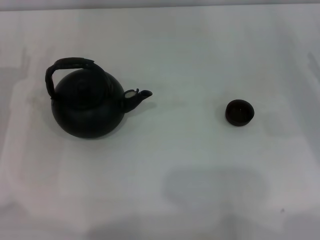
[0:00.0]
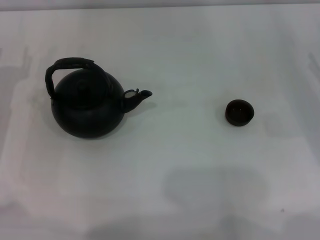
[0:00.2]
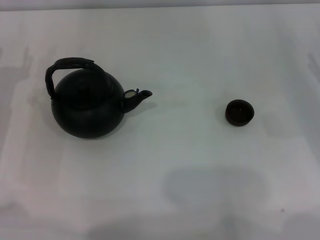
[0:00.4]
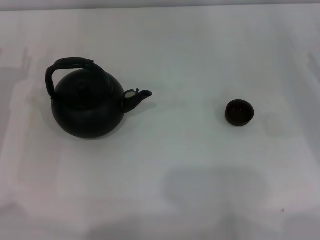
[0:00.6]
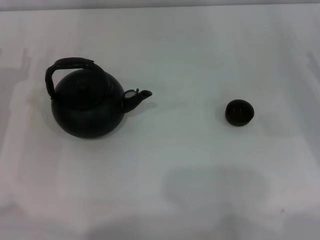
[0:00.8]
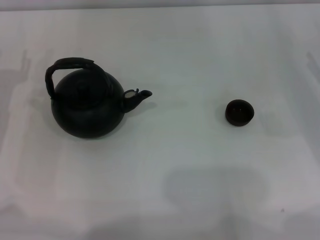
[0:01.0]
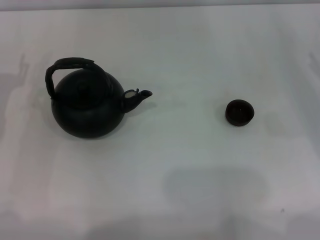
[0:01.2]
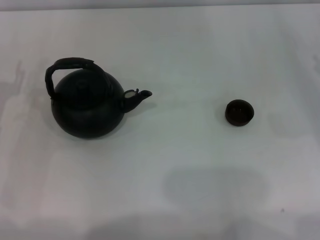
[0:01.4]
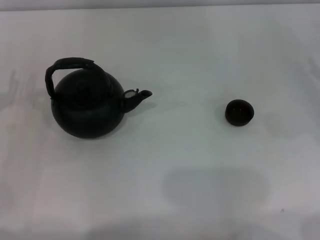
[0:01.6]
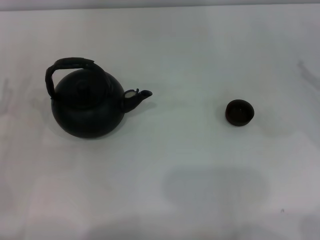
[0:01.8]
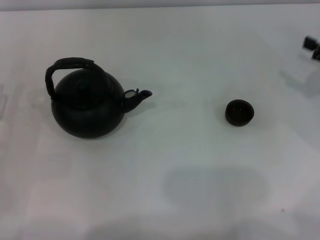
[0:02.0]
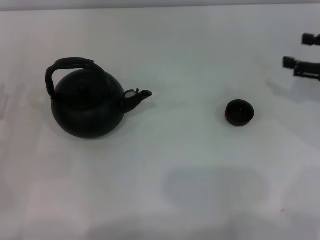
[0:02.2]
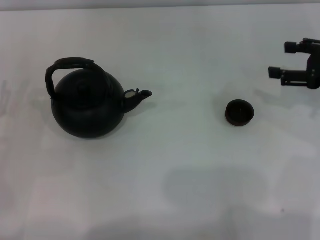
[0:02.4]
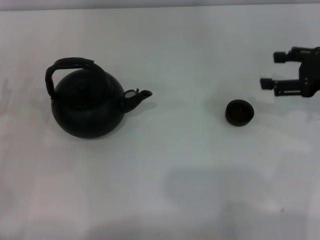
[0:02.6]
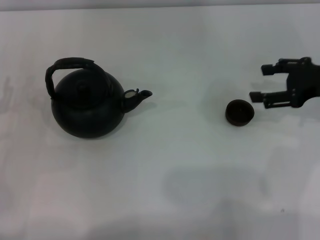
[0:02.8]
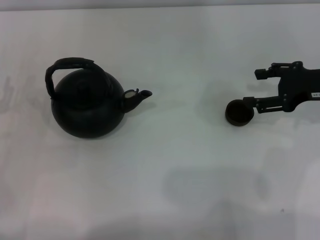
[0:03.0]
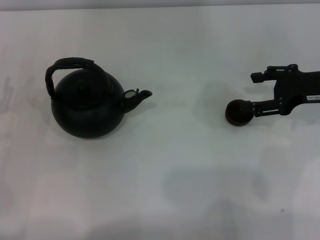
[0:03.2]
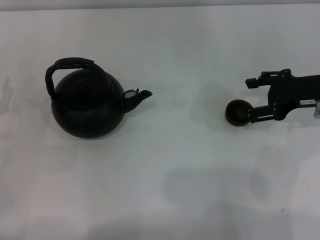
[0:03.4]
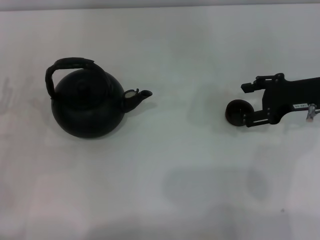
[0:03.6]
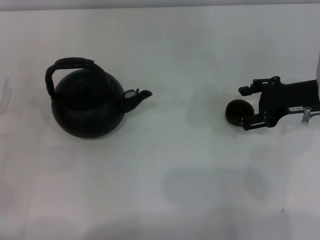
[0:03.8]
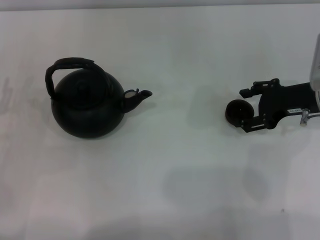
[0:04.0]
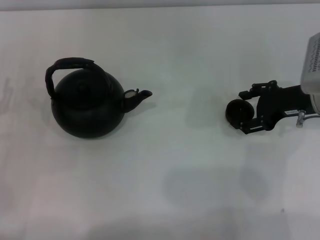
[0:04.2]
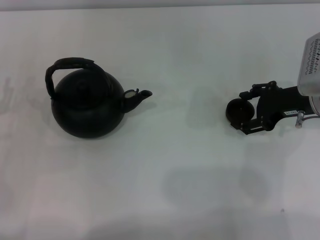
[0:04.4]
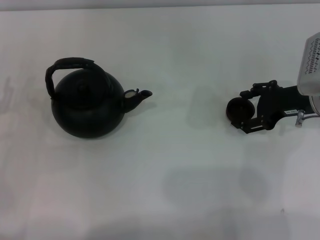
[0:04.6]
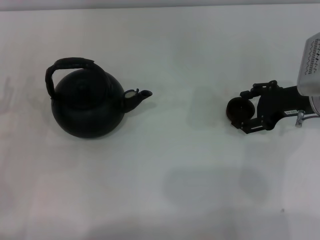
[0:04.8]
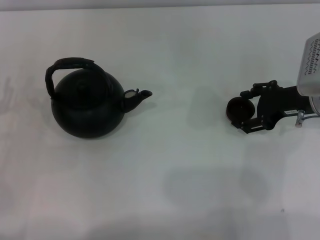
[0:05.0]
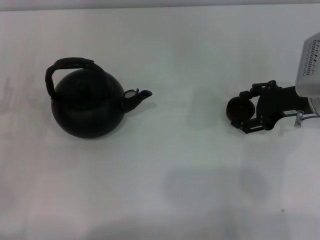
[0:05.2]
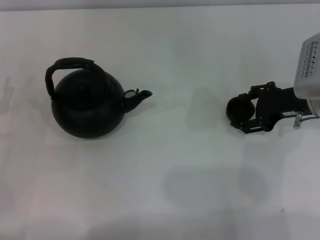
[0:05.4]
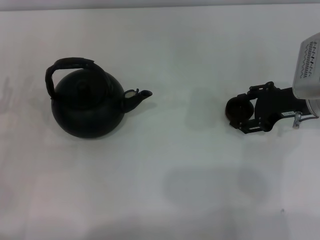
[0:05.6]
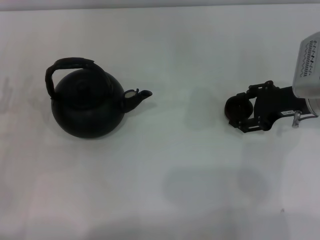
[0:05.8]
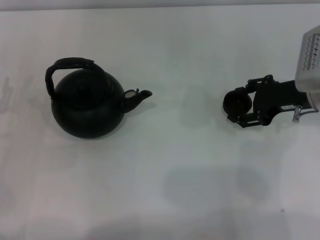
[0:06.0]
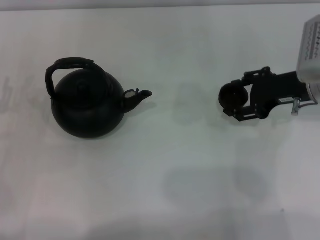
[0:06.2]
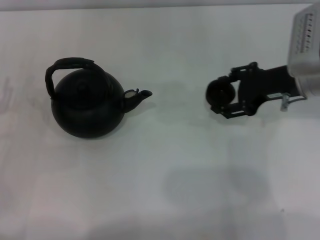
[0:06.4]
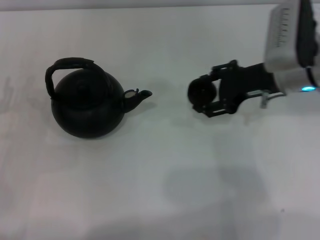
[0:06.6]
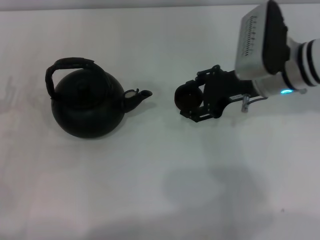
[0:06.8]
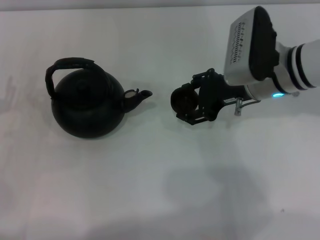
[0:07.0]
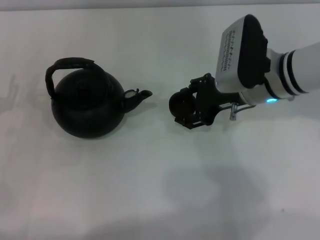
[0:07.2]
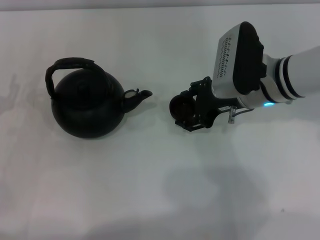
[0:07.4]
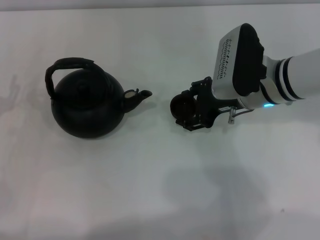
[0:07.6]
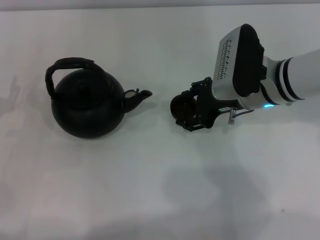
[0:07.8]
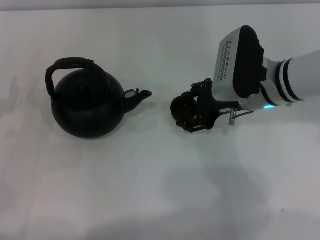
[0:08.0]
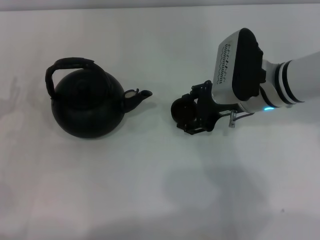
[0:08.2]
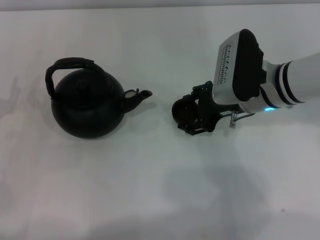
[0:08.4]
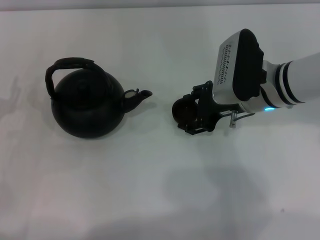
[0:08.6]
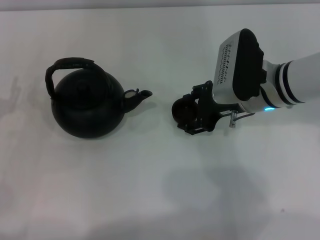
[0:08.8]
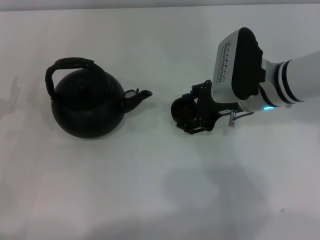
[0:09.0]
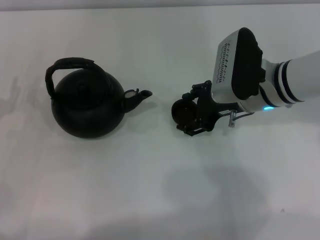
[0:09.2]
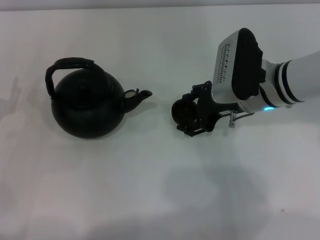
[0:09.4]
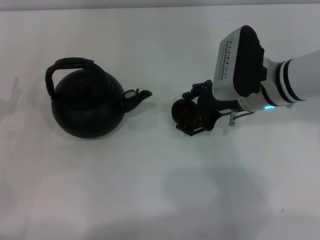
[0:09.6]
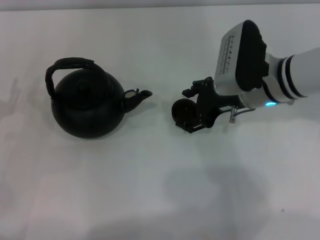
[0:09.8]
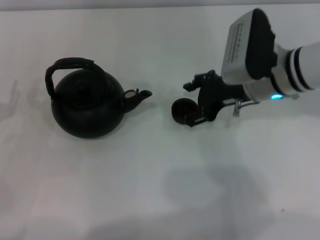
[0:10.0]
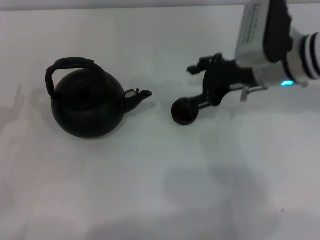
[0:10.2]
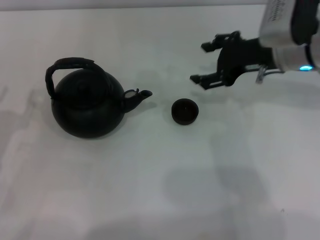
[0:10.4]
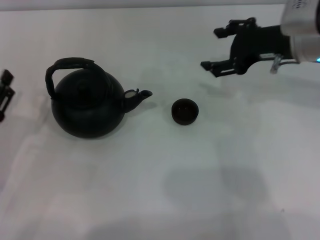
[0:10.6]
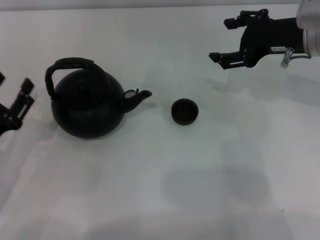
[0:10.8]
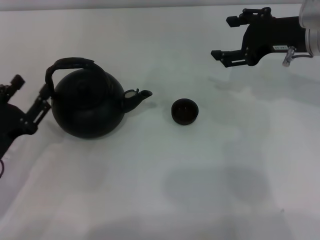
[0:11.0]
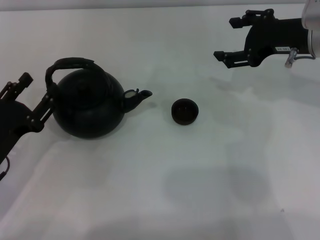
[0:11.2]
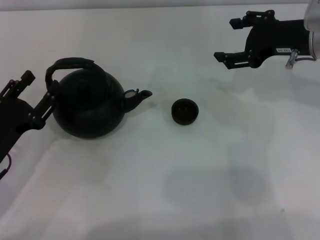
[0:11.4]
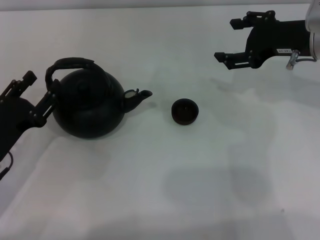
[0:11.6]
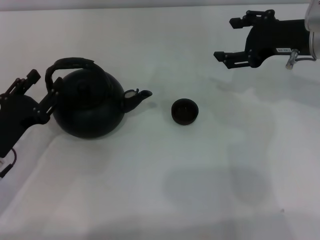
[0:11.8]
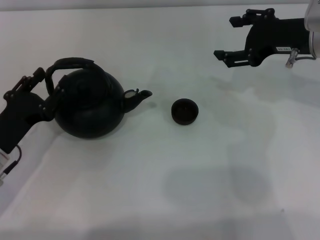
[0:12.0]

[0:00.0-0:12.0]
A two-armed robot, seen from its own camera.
Task of the whole recording: Grasp the handle of the teapot with one hand and pour tea into the teacup.
Step, 0:00.0 to 0:06.0: Pick up the teacup with the right gripper.
Step, 0:06.2 to 0:10.0: Place the teacup in the center of view with the right gripper.
0:01.6 to 0:03.0: The right gripper is displaced to the left by roughly 10 cm.
0:03.0 to 0:04.4: The grippers stay close to where they were, moving slightly.
0:04.4 to 0:06.0: Both grippers stay about where they are.
0:06.0 to 0:07.6: The right gripper shifts roughly 10 cm to the left.
0:07.6 to 0:09.0: Both grippers stay put.
0:09.0 to 0:10.4: The right gripper goes roughly 5 cm upward.
0:10.4 to 0:12.0: The left gripper changes place by approximately 5 cm.

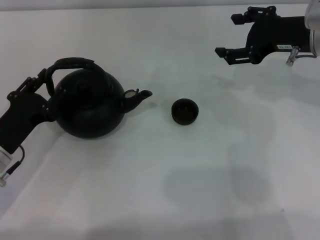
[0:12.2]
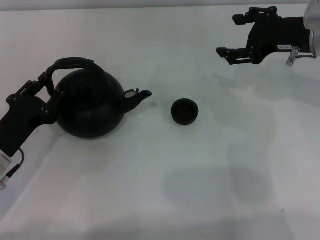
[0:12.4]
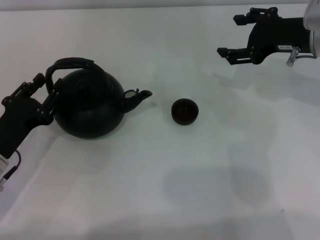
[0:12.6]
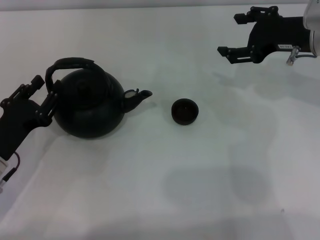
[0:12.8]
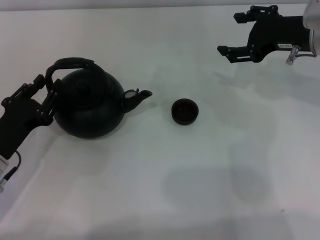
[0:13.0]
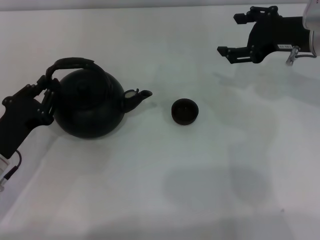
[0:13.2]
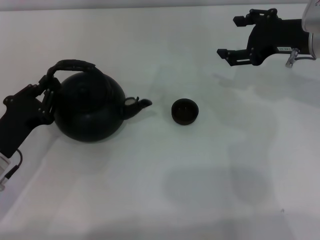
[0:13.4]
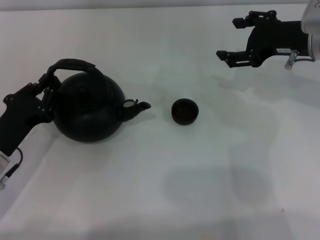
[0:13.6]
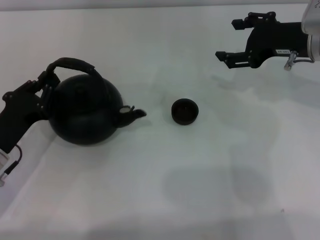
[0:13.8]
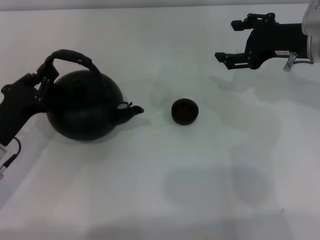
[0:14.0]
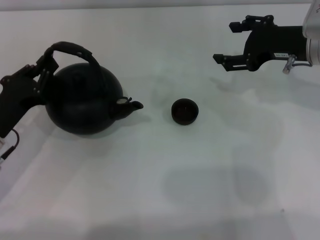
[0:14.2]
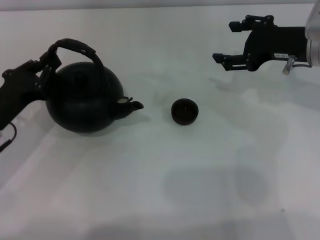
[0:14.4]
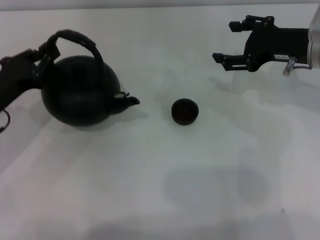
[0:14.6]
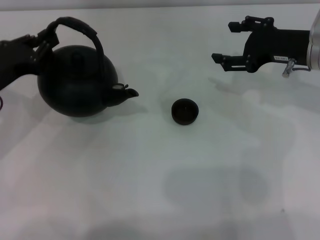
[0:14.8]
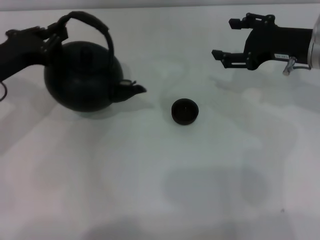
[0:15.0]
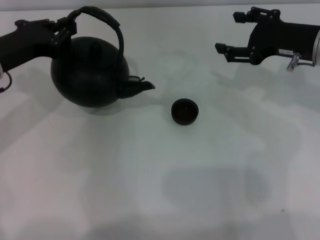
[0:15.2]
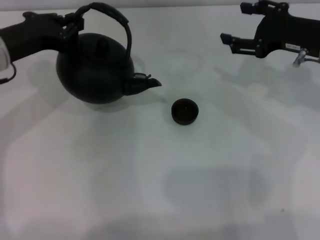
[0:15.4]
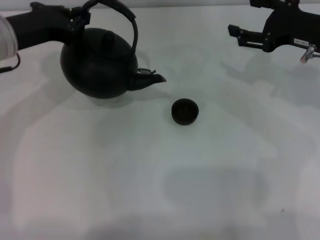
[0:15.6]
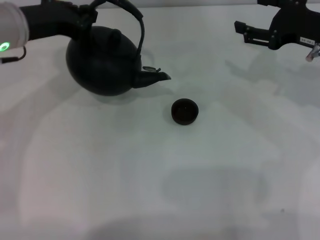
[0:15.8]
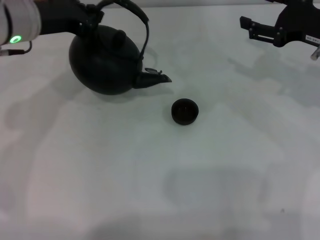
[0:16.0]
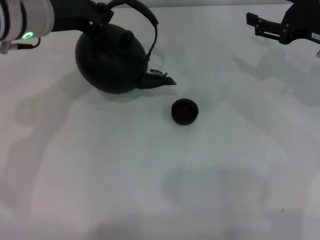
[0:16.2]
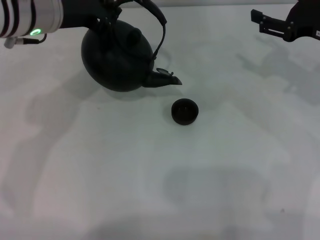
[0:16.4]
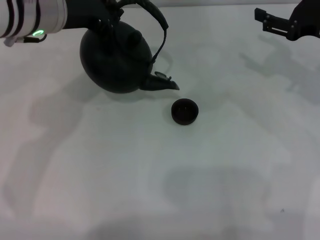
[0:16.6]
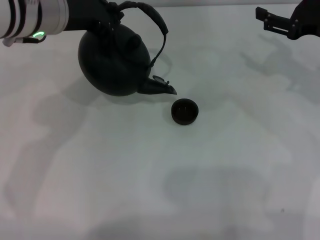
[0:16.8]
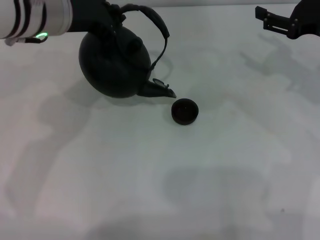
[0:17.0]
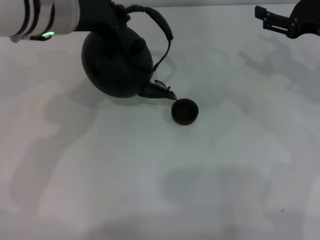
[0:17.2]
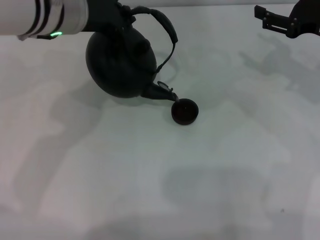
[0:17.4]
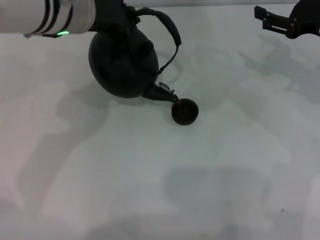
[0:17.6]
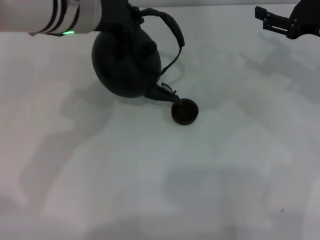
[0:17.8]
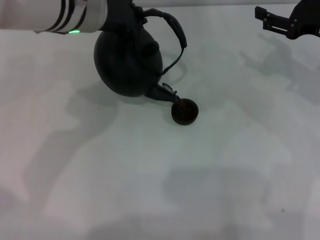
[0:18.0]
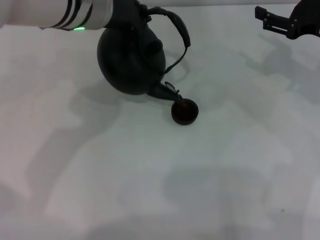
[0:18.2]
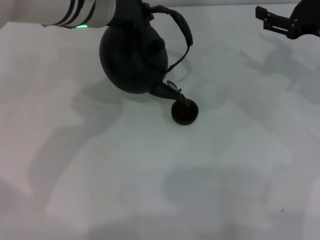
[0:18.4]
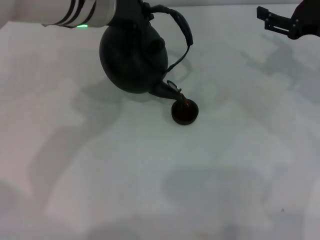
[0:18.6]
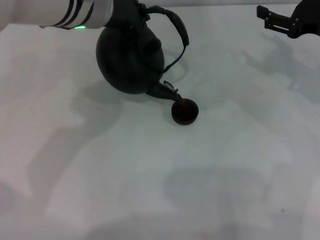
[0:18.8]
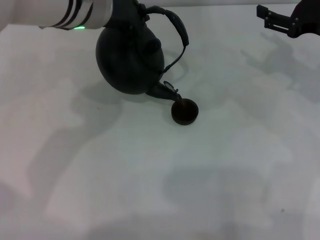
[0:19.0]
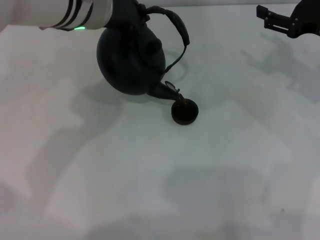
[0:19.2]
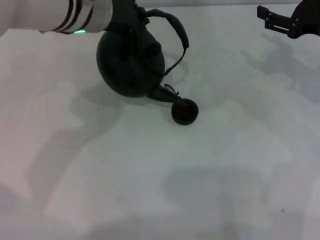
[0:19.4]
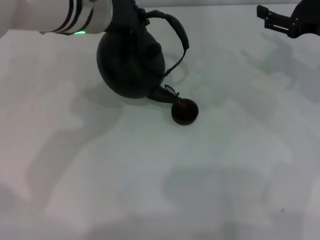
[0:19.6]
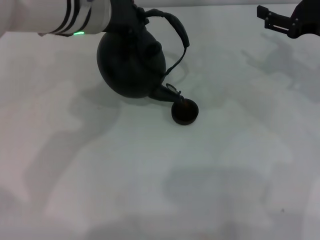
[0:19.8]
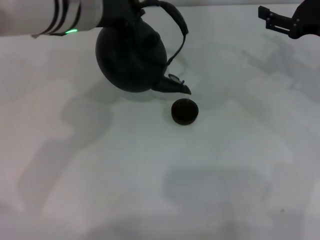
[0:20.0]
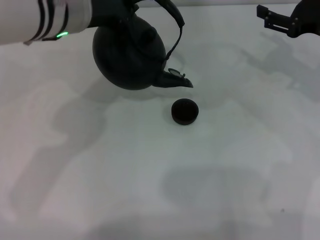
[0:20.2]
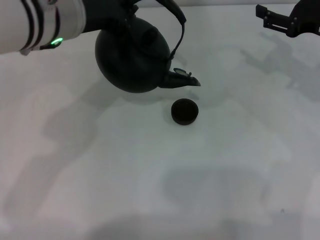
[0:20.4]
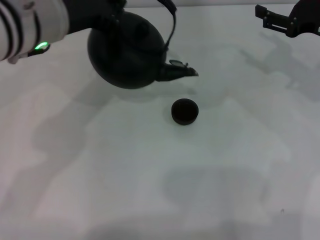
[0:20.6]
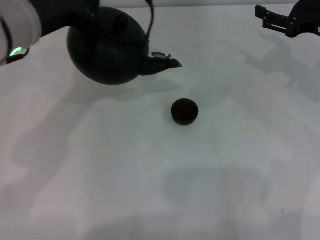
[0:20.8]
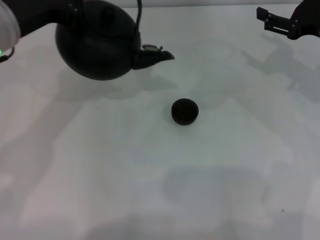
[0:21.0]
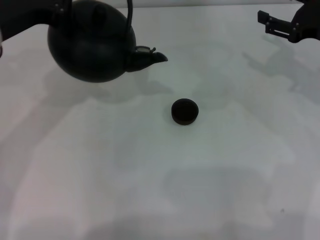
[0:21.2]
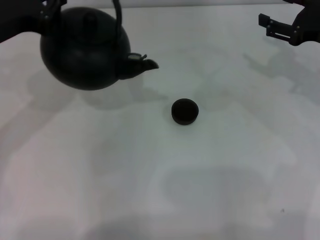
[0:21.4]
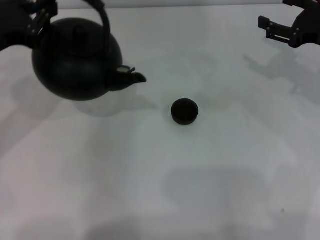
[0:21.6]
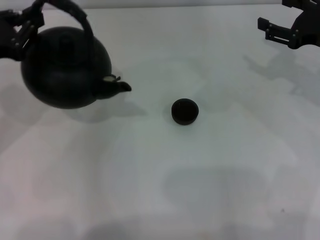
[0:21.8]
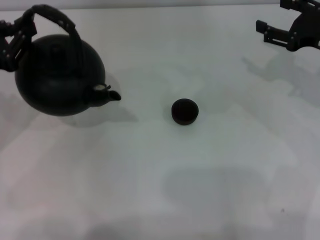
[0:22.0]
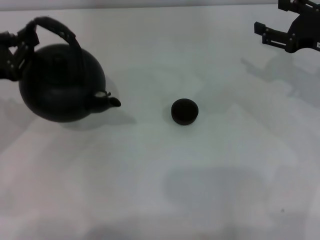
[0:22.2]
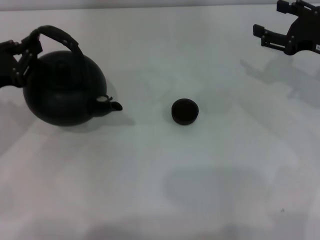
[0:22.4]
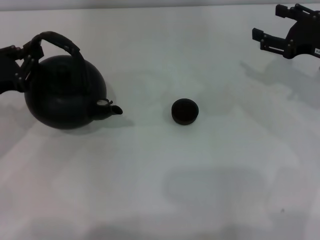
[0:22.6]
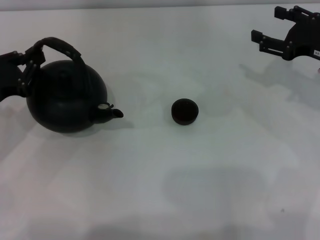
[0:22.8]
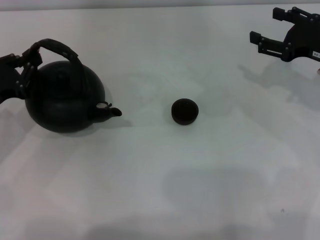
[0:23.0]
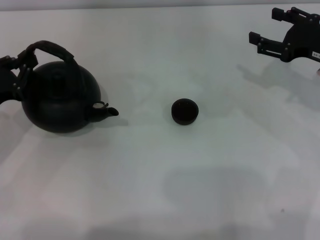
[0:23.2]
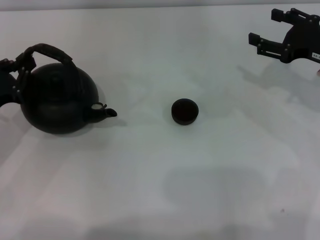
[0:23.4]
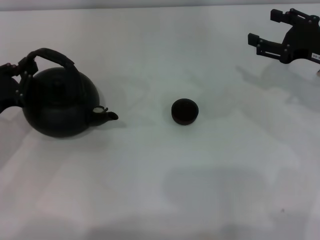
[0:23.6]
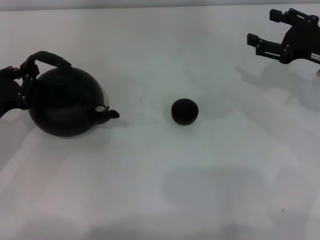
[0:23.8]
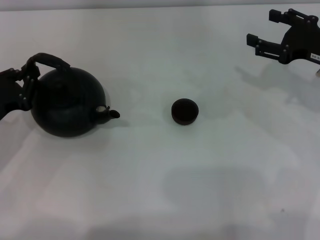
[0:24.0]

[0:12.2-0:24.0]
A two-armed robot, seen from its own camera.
Task of the whole recording: Grasp the handle of the teapot with one hand and pour tea into the teacup.
Step, 0:12.2 to 0:14.2: Pick up the teapot with the left gripper.
Step, 0:14.4 to 0:20.0: Pour tea into the teacup with the left gripper.
0:12.2 to 0:13.6: The left gripper closes up.
0:13.6 to 0:15.2: The left gripper is displaced upward and forward by about 15 cm.
0:15.2 to 0:16.6: The left gripper travels to the right and upward by roughly 15 cm.
0:16.6 to 0:18.2: The left gripper goes approximately 5 cm to the right.
0:18.2 to 0:19.6: Neither gripper changes place.
0:19.6 to 0:21.0: The left gripper travels to the left and backward by roughly 10 cm.
0:21.0 to 0:22.6: The left gripper travels downward and to the left by about 15 cm.
0:22.6 to 0:24.0: The grippers make only small movements.
